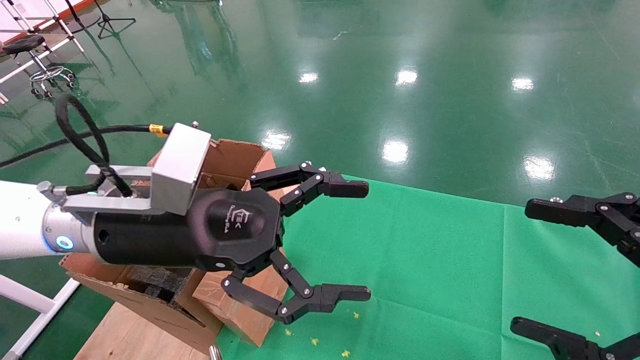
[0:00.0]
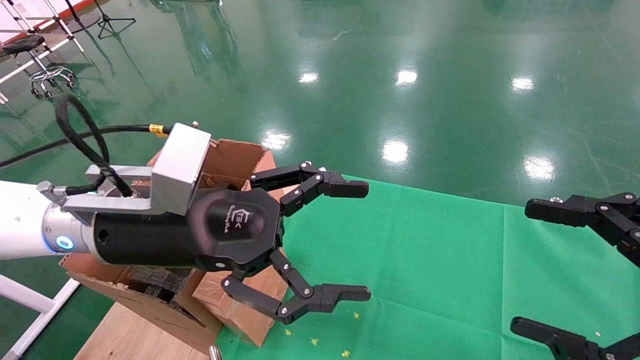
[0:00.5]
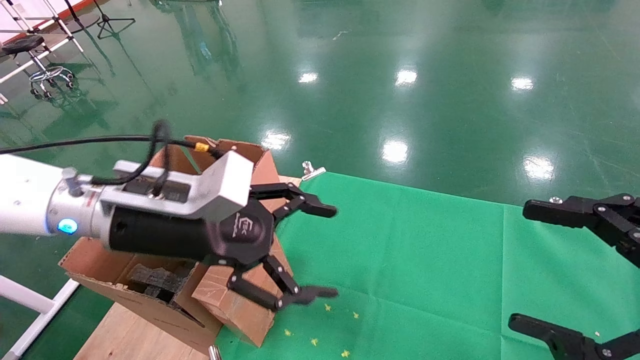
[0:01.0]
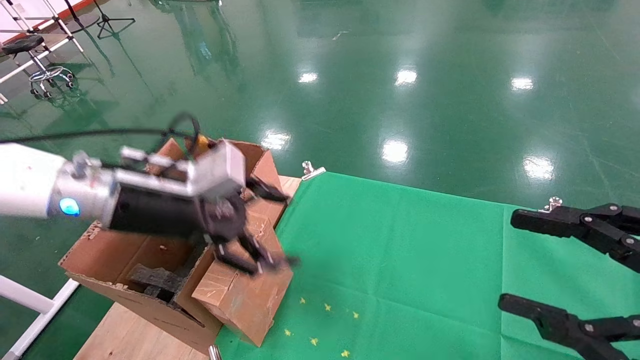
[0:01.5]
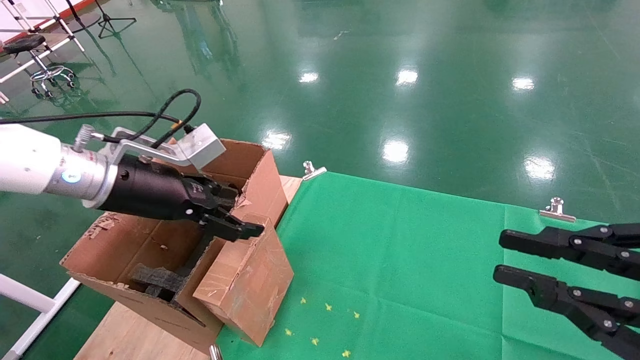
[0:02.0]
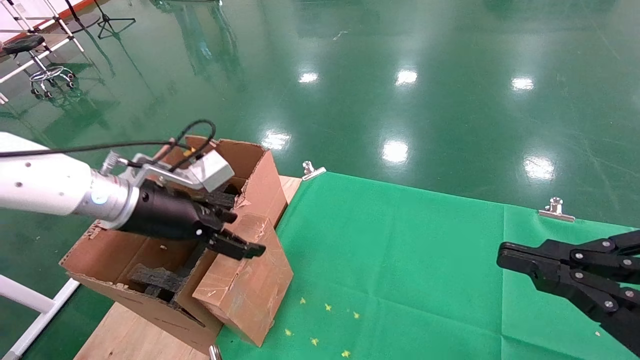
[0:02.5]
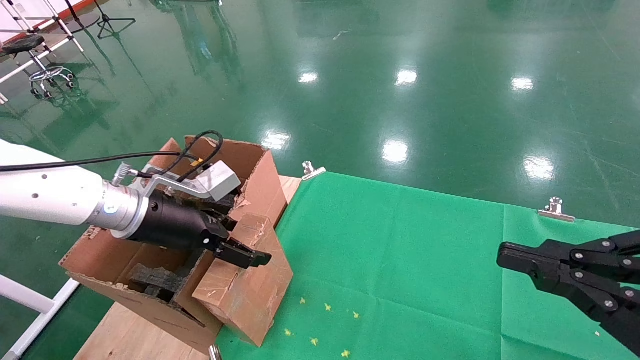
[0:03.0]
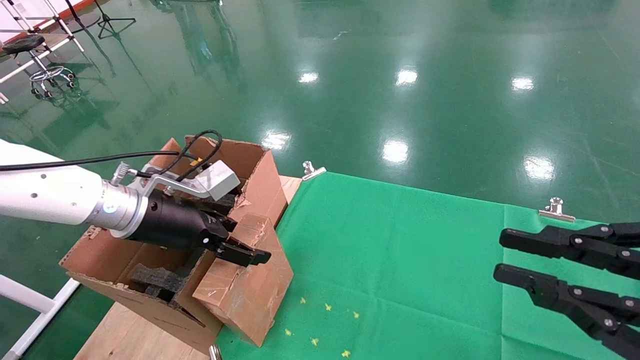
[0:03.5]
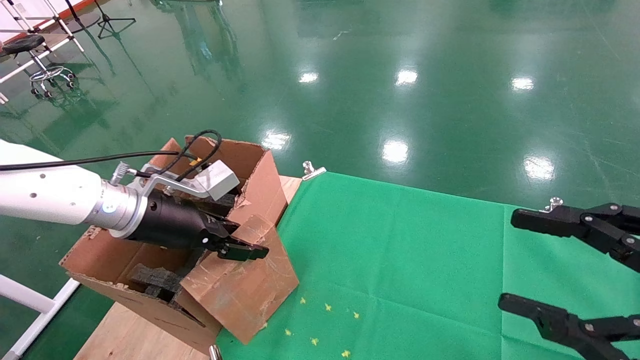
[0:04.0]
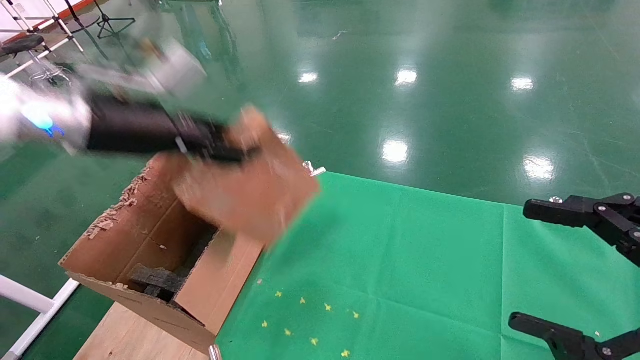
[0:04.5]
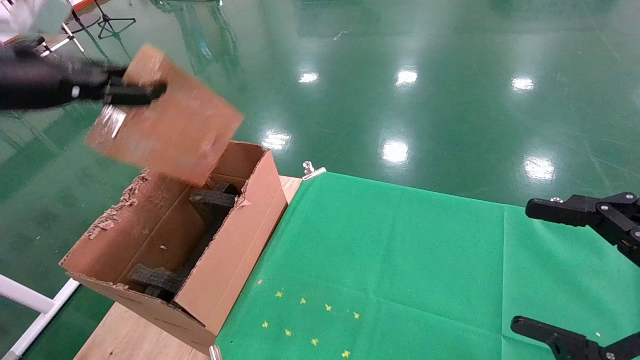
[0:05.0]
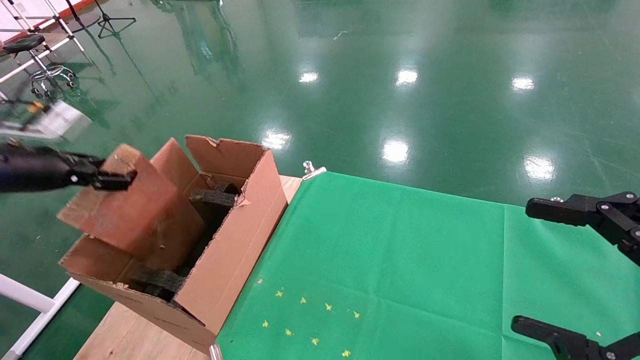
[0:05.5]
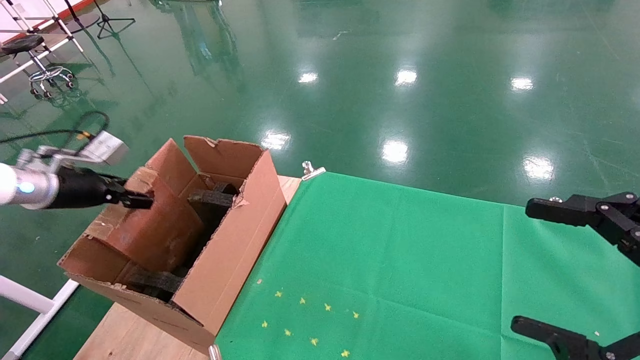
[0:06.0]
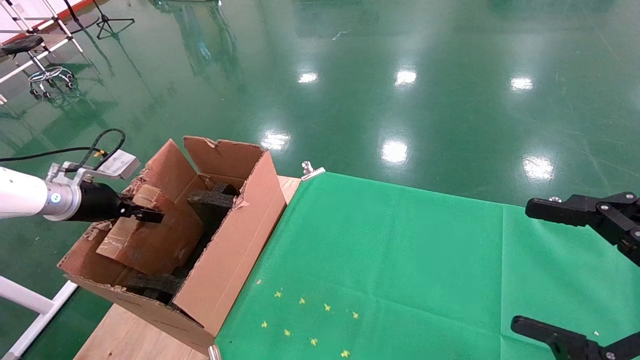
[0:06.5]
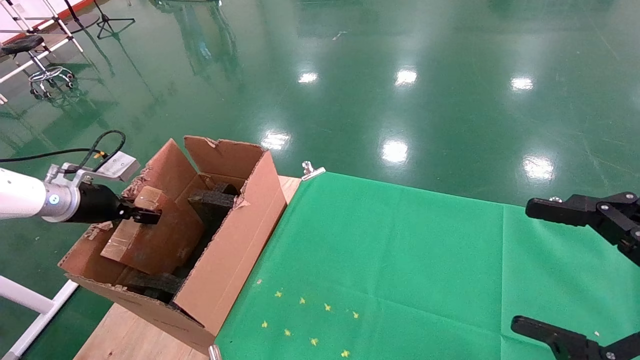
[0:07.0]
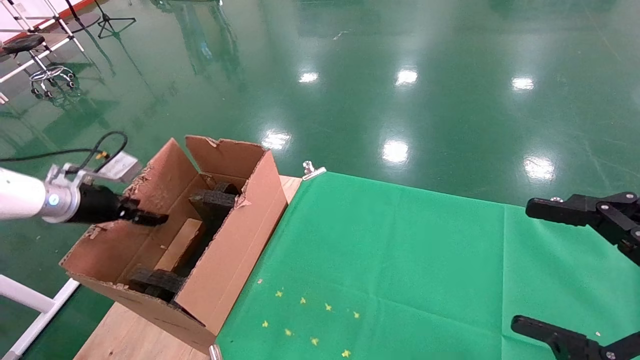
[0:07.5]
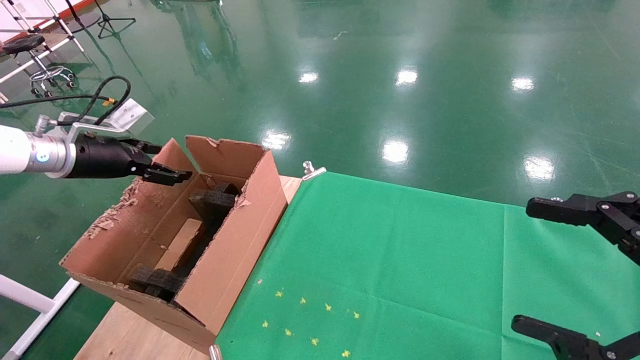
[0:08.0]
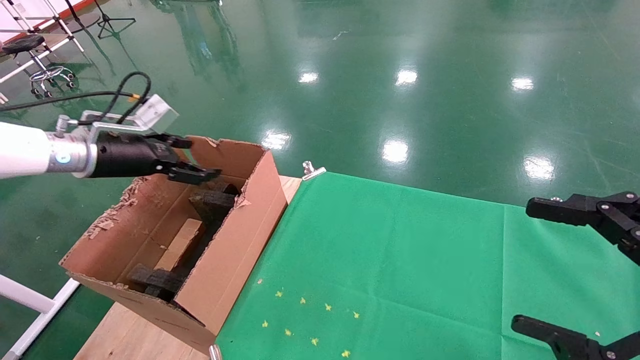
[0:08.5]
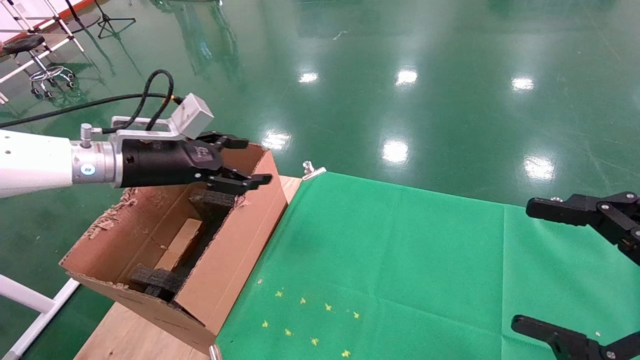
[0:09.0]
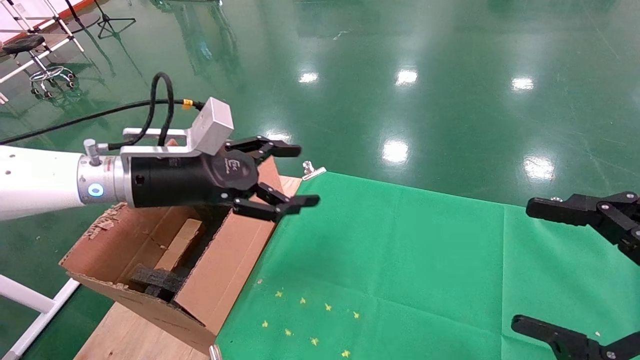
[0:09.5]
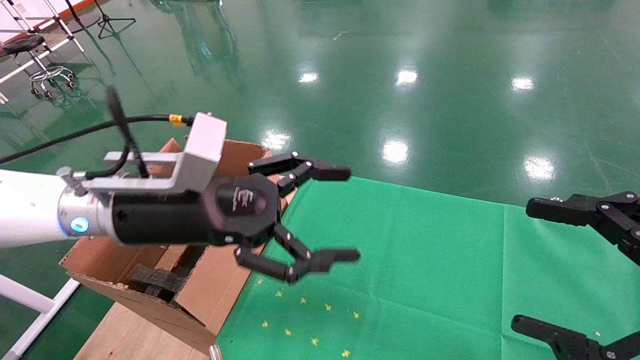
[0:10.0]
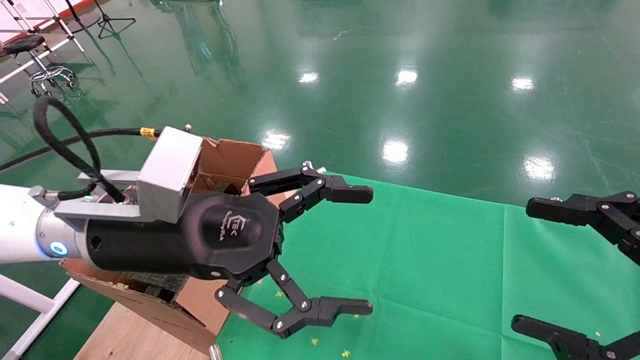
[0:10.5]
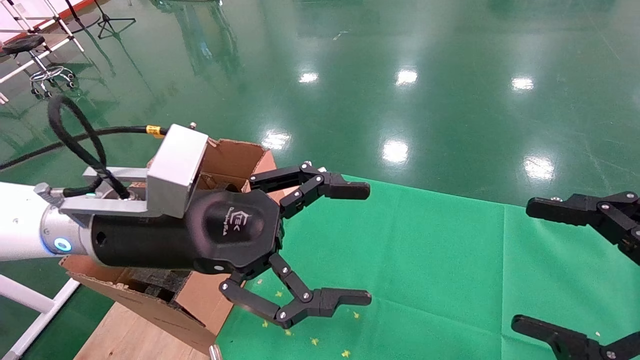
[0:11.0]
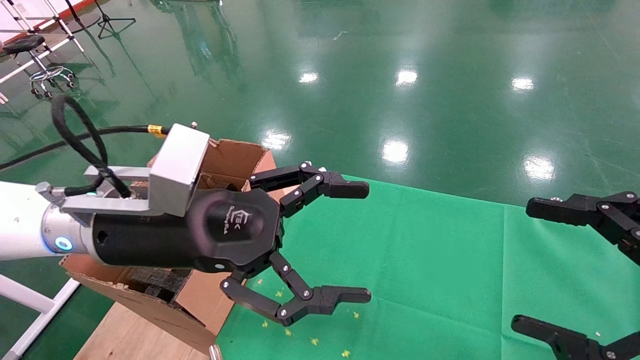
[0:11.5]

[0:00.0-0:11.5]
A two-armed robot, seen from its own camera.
Task of the whole recording: using a robotic arm to pick up a cardboard box and palace it the carton.
Step, 0:01.0 to 0:04.0: Pick up the mouse and the power cord paper box.
Step, 0:04.5 to 0:07.5: Place the mouse and the power cord paper box into the container.
0:00.0 to 0:02.0: The left gripper moves to the left and forward, some 10 cm, while the right gripper closes.
0:02.0 to 0:04.0: The left gripper closes.
0:04.0 to 0:06.0: The right gripper opens. Meanwhile the left gripper goes about 20 cm to the left, and closes.
0:06.0 to 0:07.5: The left gripper opens its fingers.
0:07.5 to 0:09.5: The left gripper goes roughly 20 cm to the right, and opens.
0:09.5 to 0:11.5: The left gripper shifts approximately 10 cm backward and to the right.

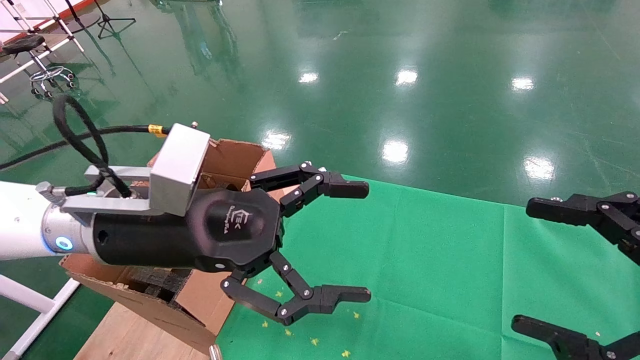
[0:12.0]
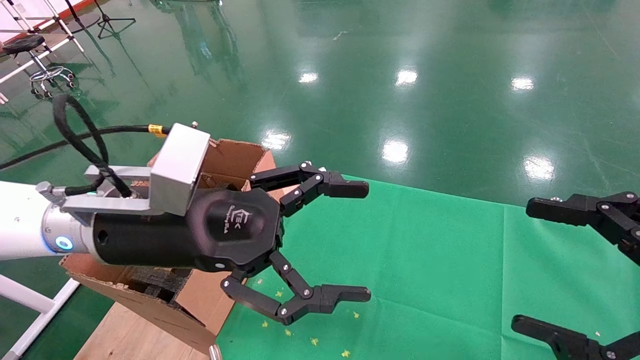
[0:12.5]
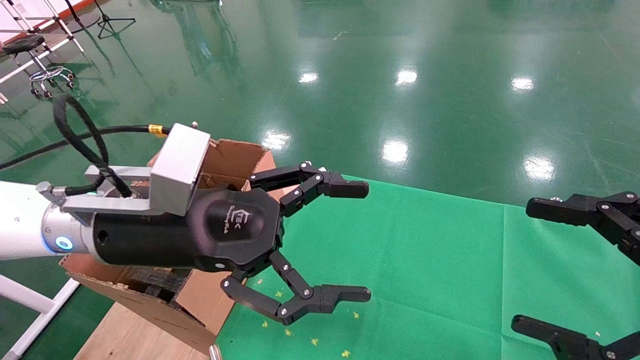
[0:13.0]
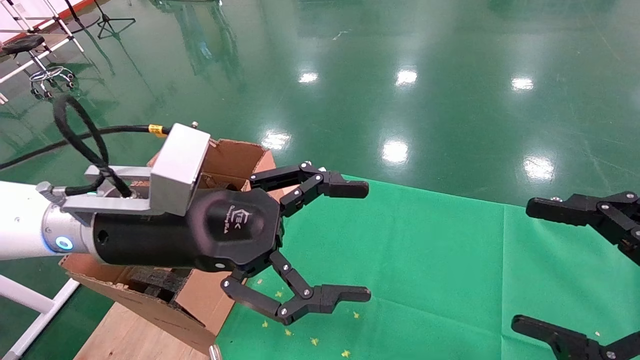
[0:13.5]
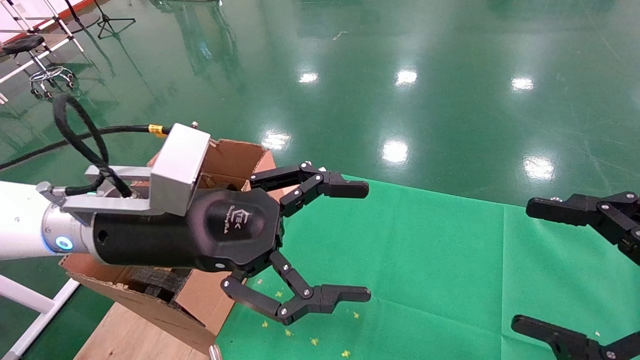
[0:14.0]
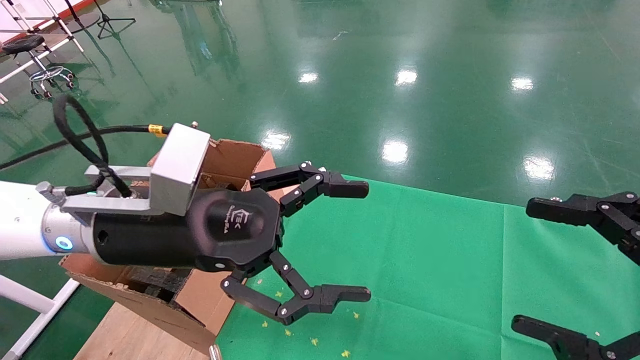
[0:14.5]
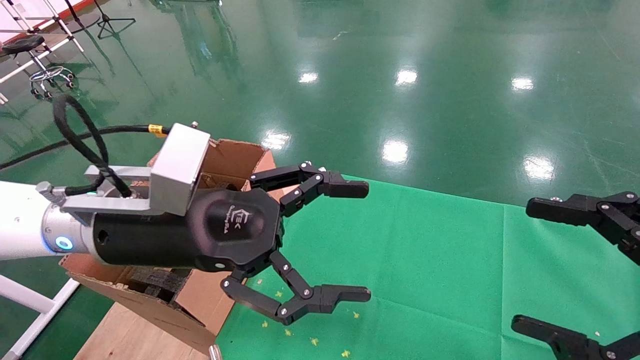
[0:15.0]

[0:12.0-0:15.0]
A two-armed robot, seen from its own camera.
Task of the whole recording: using a robotic arm to pick up a cardboard box and palace it the carton.
0:12.0 to 0:15.0: Both grippers stay about where they are.
